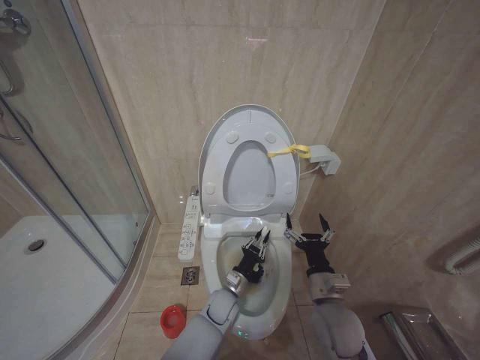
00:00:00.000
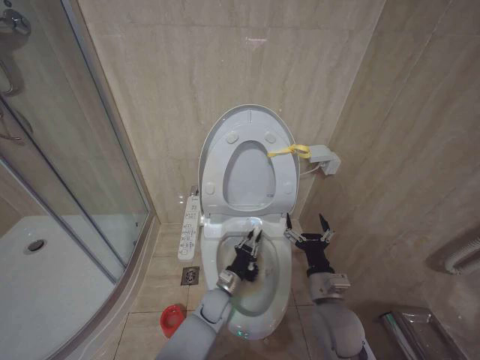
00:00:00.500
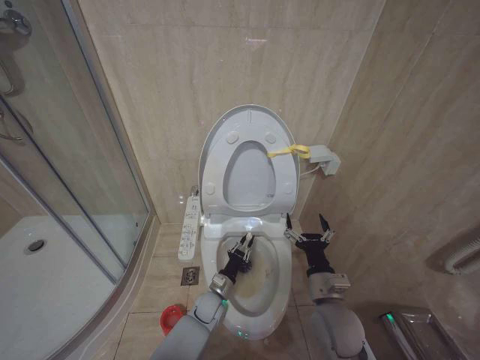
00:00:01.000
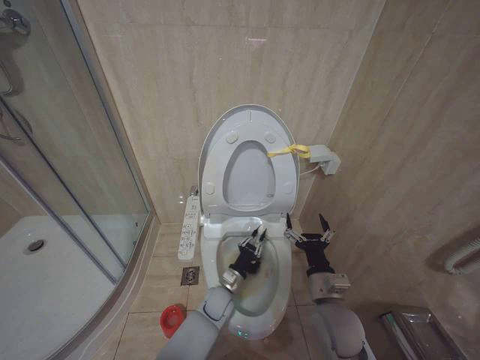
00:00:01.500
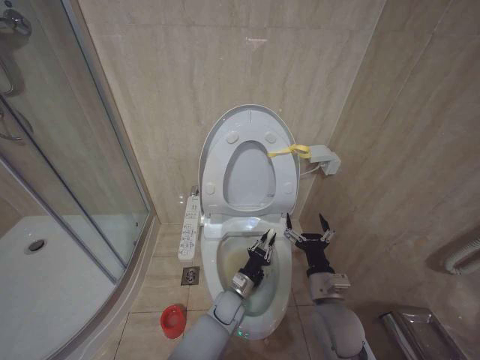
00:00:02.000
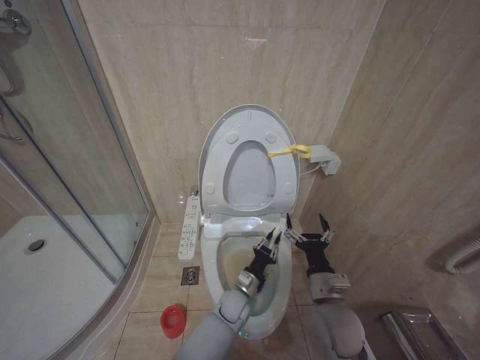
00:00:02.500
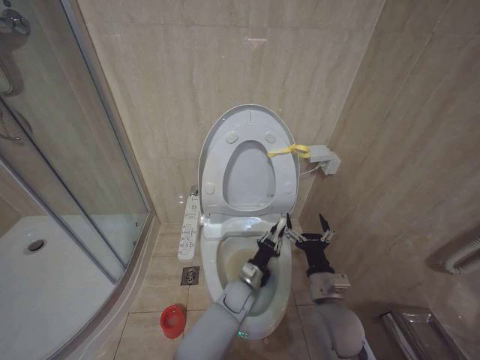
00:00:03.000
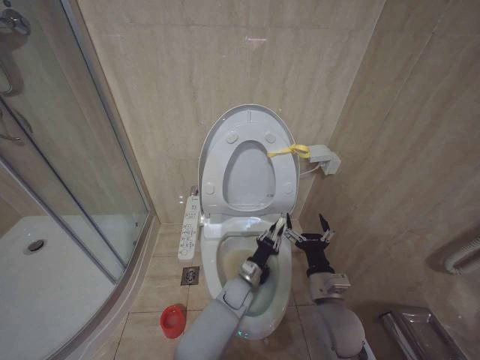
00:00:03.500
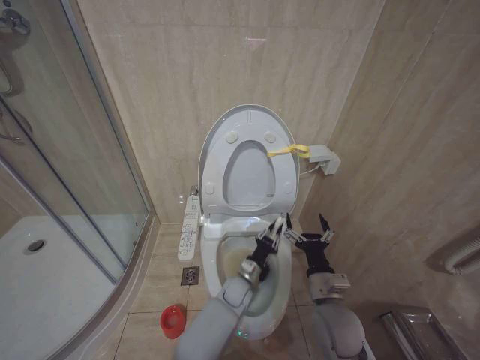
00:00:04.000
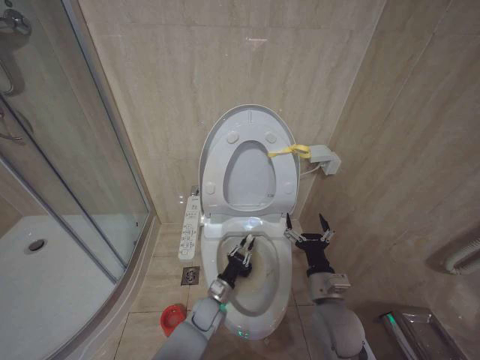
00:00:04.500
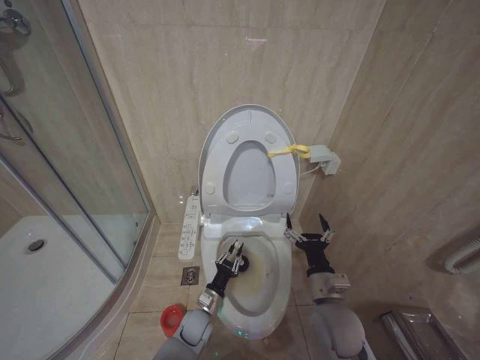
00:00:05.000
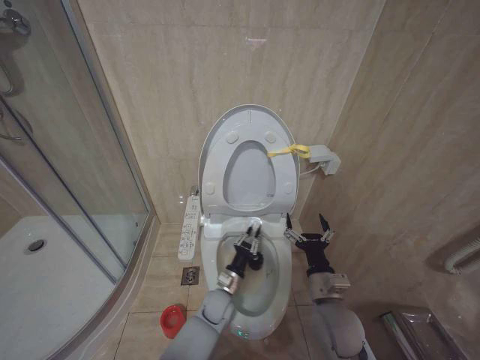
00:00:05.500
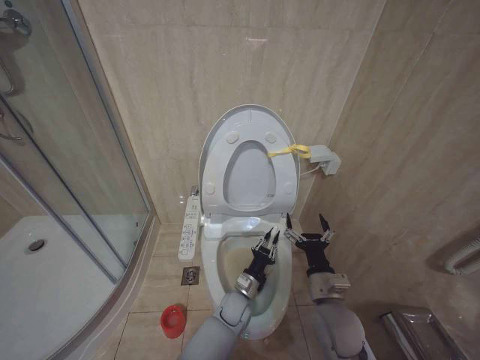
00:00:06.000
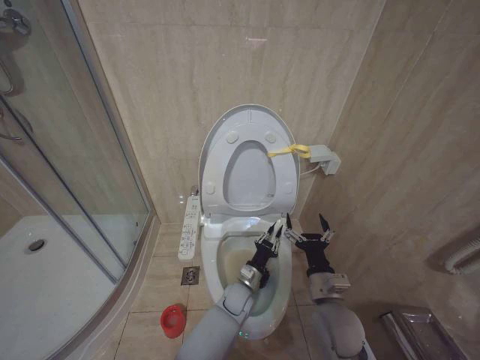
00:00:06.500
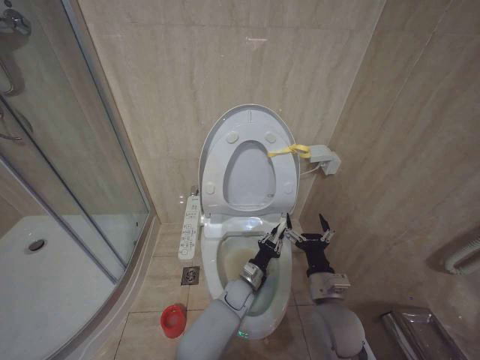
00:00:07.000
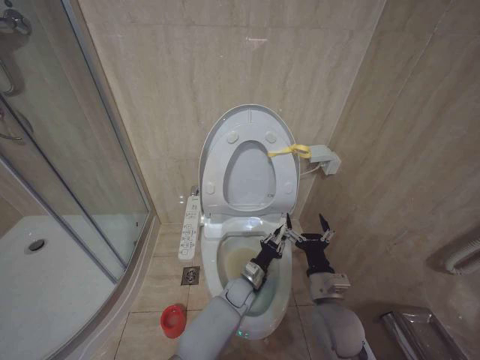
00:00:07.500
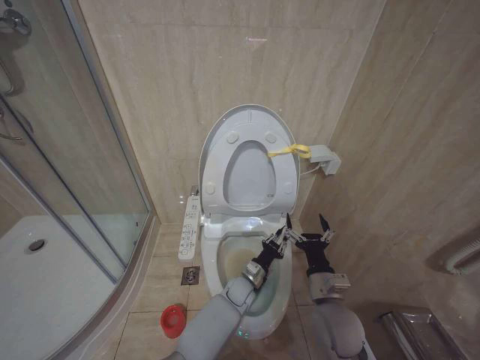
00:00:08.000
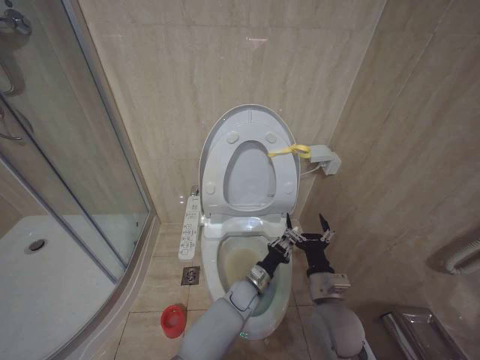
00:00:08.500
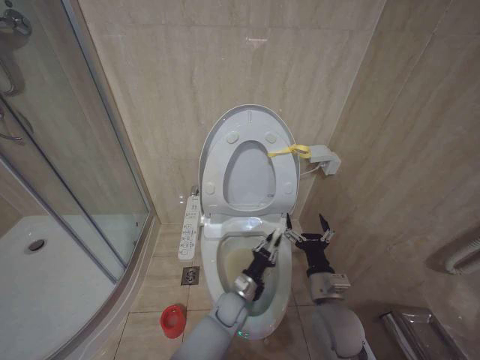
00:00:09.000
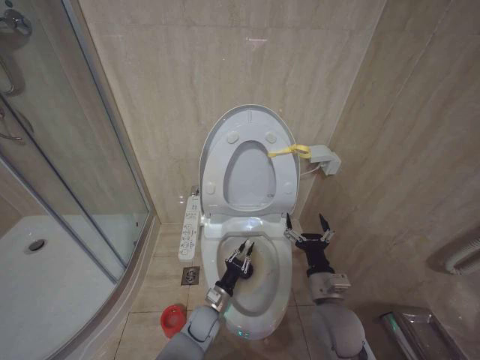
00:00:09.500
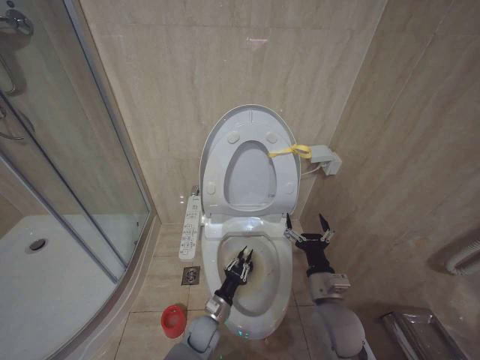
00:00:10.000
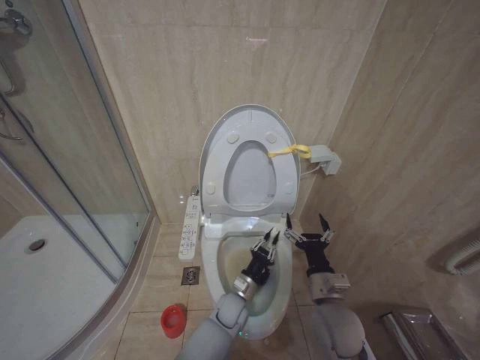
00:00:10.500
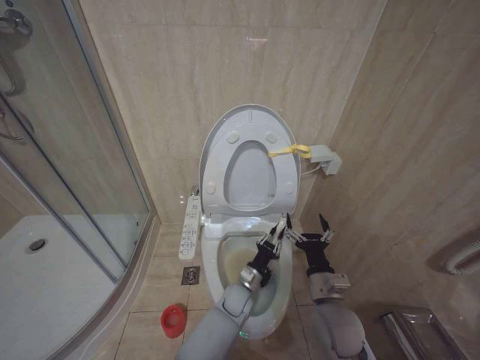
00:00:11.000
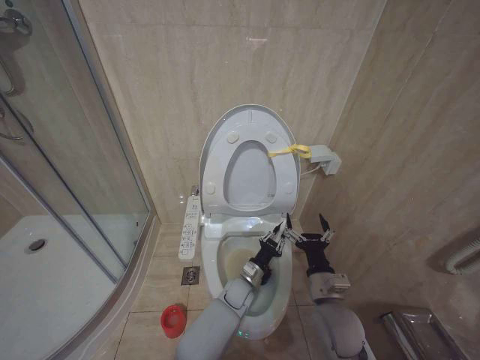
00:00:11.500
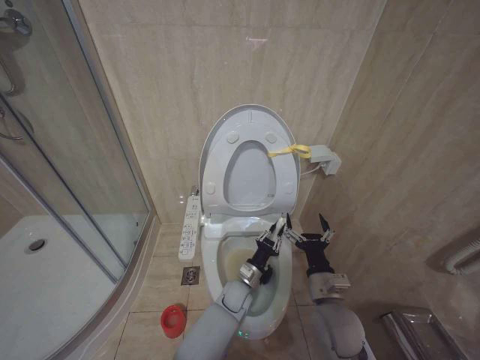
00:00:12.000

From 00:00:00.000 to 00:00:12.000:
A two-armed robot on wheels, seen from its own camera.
Task of the whole recording: Open the toilet lid, clean the toilet bowl with a toilet brush, close the toilet lid, and flush.
From 00:00:02.000 to 00:00:04.000: The left gripper shifts by about 5 cm.
From 00:00:04.000 to 00:00:06.000: The left gripper travels to the left and back again, some 15 cm each way.
From 00:00:06.000 to 00:00:08.000: The left gripper ends up roughly 5 cm from where it was.
From 00:00:08.000 to 00:00:10.000: The left gripper moves to the left, backward and downward, some 15 cm.
From 00:00:10.000 to 00:00:12.000: The left gripper is displaced to the right, forward and upward by roughly 15 cm.

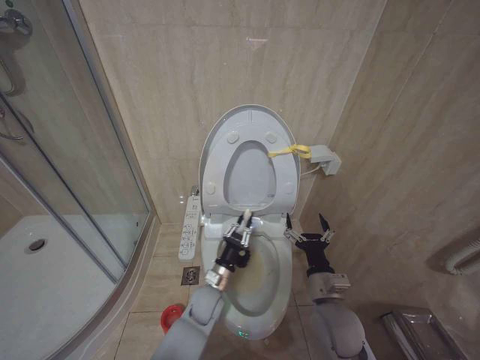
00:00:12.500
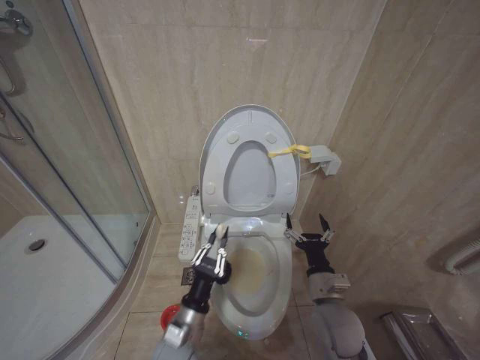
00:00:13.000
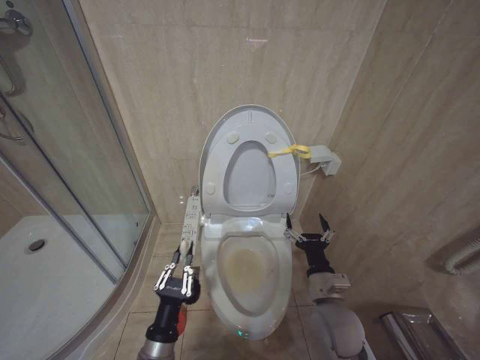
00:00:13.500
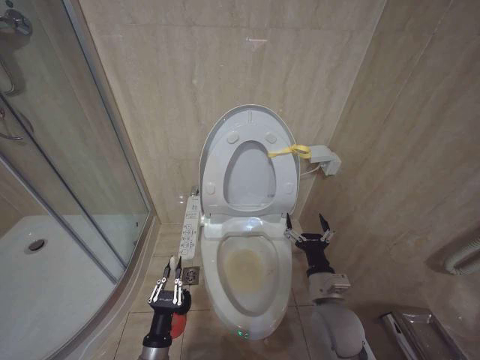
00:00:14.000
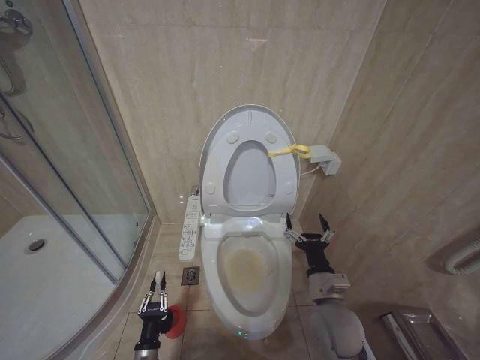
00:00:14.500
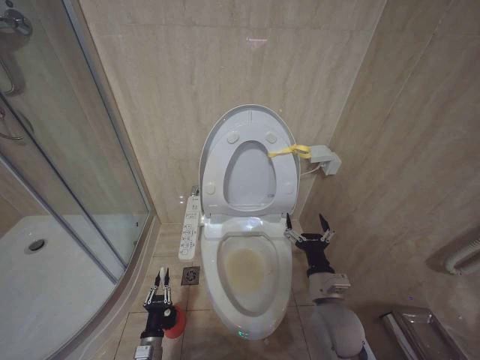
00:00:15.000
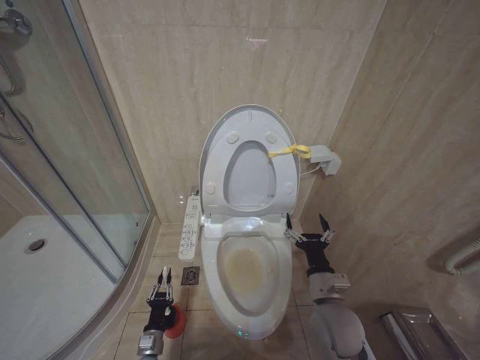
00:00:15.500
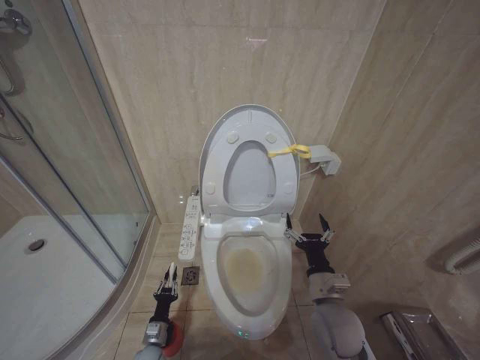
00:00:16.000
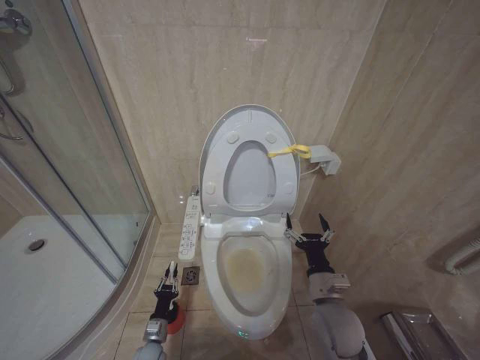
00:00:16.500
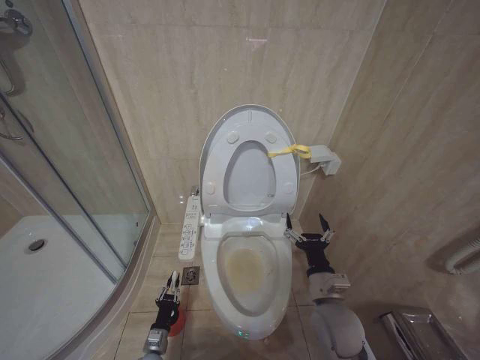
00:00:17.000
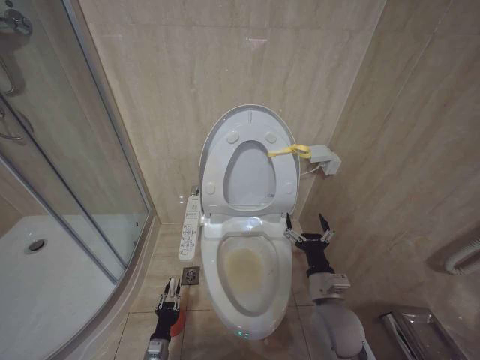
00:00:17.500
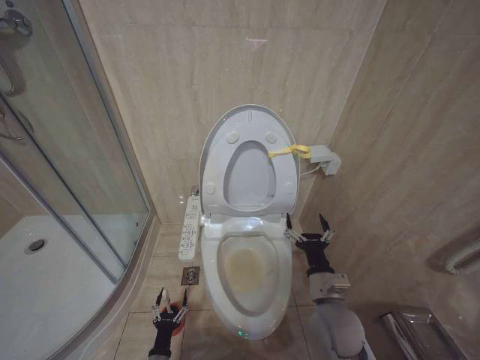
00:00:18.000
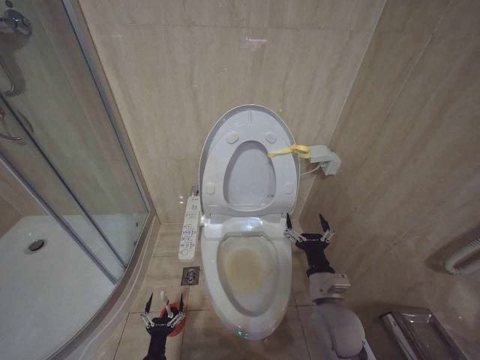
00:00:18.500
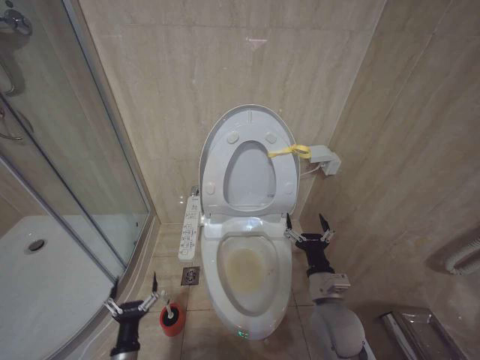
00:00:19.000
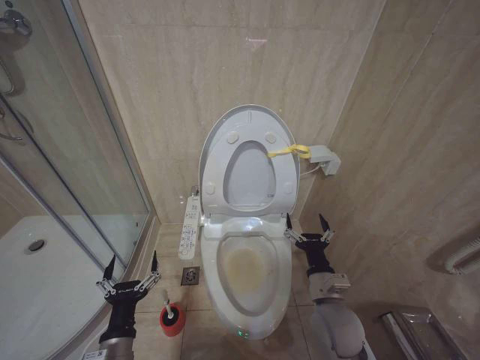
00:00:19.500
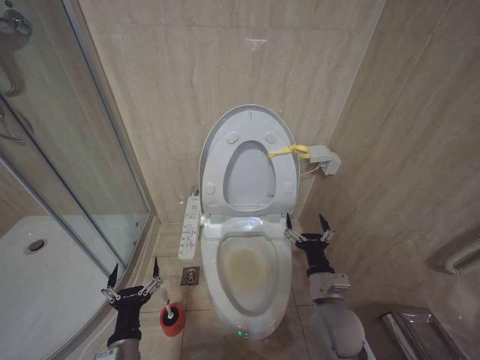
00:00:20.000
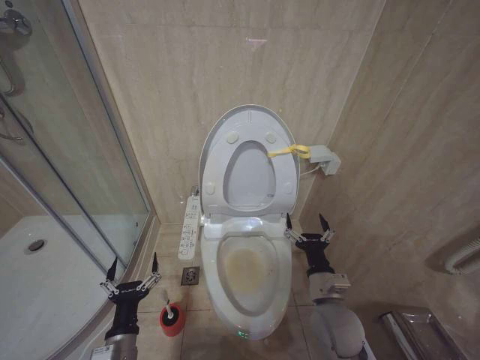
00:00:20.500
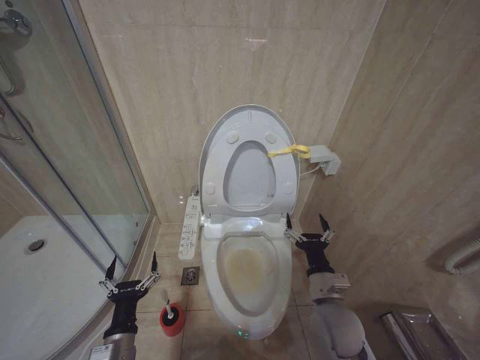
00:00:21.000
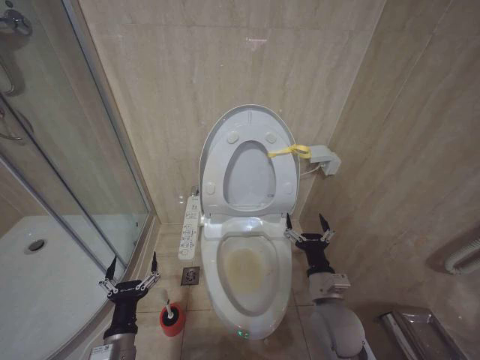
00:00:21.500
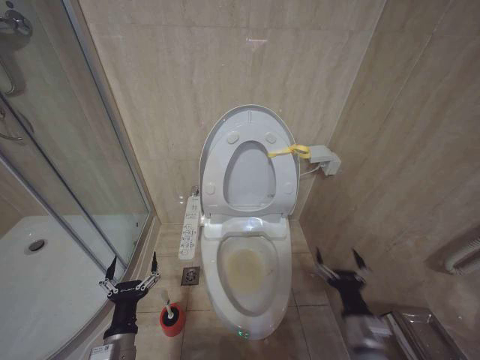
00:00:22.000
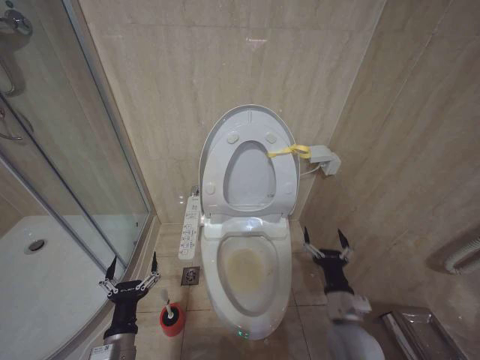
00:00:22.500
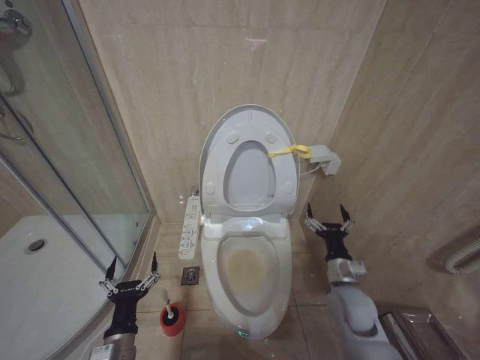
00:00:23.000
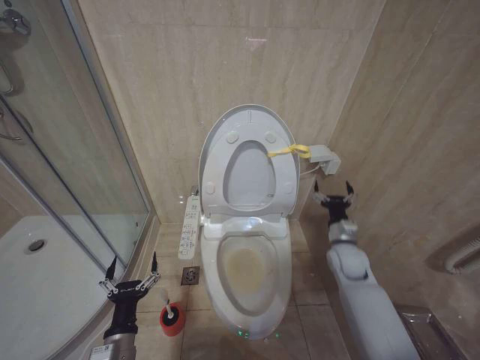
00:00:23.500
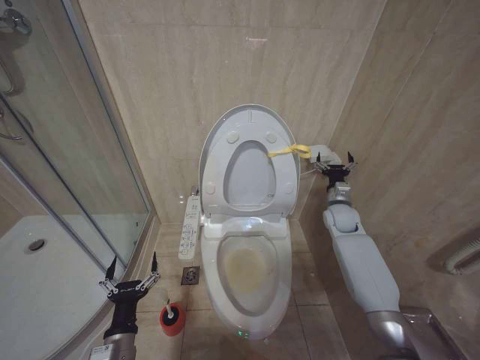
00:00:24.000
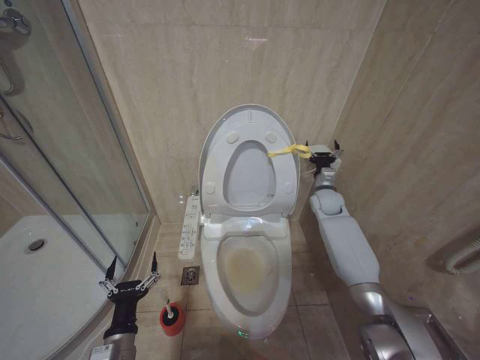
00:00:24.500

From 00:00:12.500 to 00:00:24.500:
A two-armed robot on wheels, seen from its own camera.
Task of the whole recording: Open the toilet lid, clean the toilet bowl with a toilet brush, close the toilet lid, and flush.
From 00:00:12.500 to 00:00:14.500: The left gripper moves to the left, backward and downward, some 25 cm.
From 00:00:14.500 to 00:00:16.500: The left gripper is displaced forward and downward by some 10 cm.
From 00:00:16.500 to 00:00:18.500: The left gripper is displaced backward by some 10 cm, and opens up.
From 00:00:18.500 to 00:00:20.500: The left gripper heads upward, covering some 25 cm.
From 00:00:20.500 to 00:00:22.500: The right gripper changes place by about 5 cm.
From 00:00:22.500 to 00:00:24.500: The right gripper shifts roughly 35 cm forward.

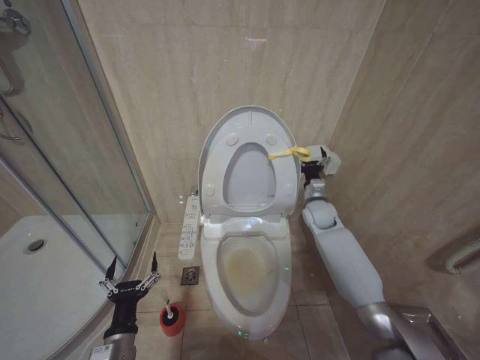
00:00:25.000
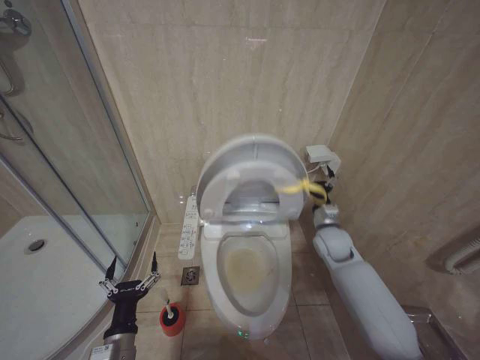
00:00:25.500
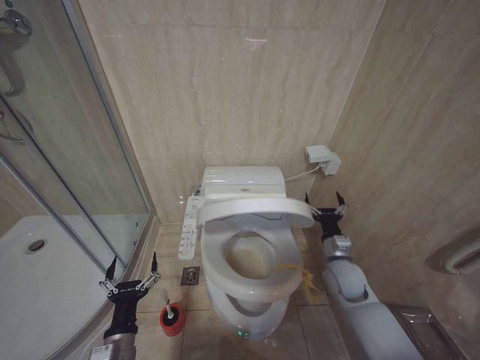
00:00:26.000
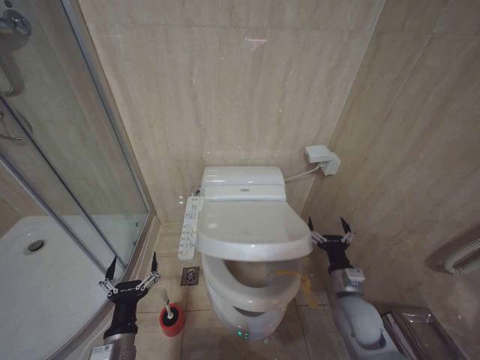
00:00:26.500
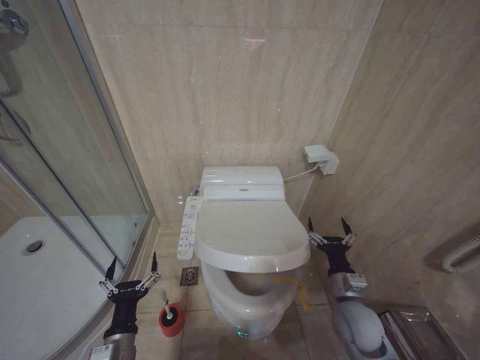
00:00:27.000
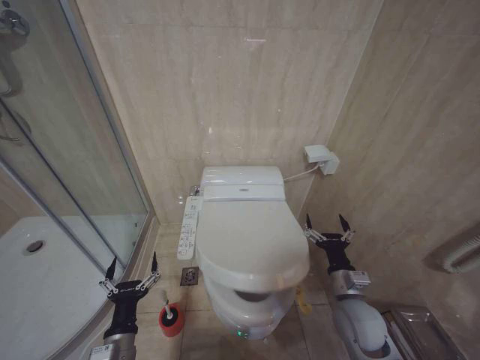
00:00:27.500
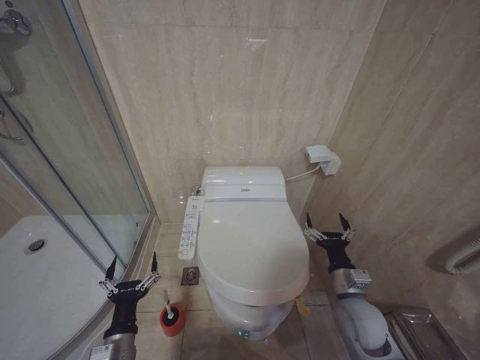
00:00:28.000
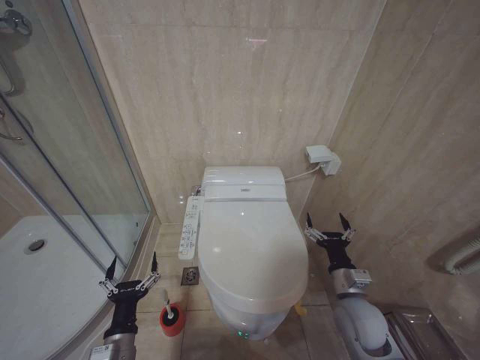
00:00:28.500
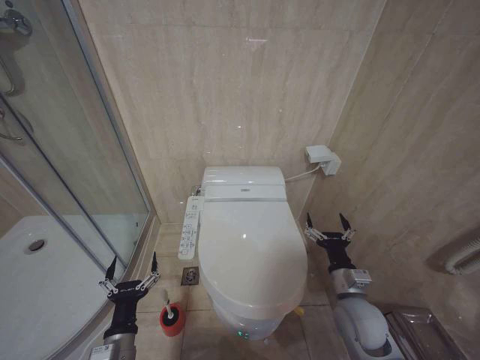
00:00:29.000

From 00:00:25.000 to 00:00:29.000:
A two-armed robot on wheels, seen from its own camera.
Task of the whole recording: Open the toilet lid, clean the toilet bowl with a toilet brush, close the toilet lid, and flush.
From 00:00:25.000 to 00:00:27.000: The right gripper moves backward, about 25 cm.
From 00:00:27.000 to 00:00:29.000: There are only small adjustments of the grippers.
